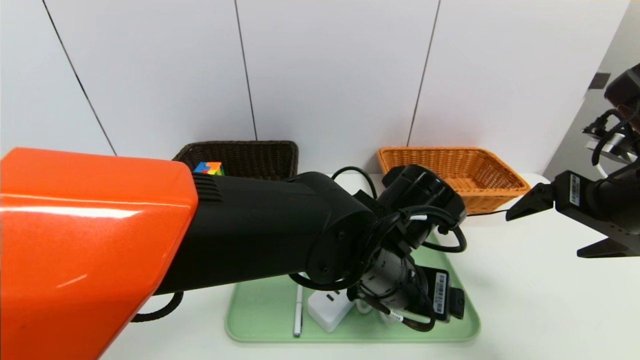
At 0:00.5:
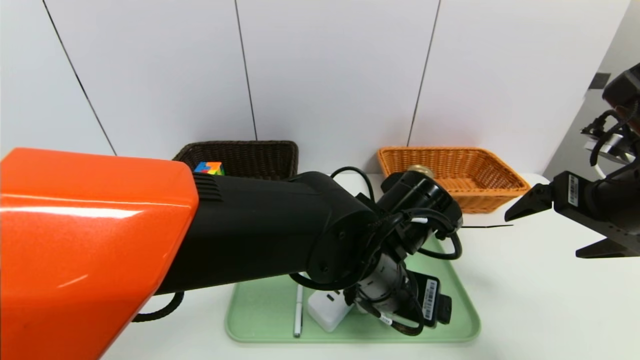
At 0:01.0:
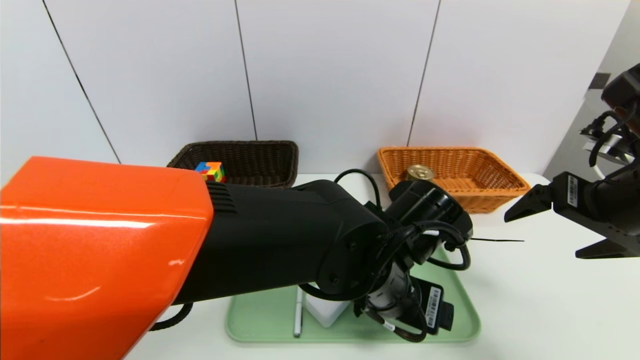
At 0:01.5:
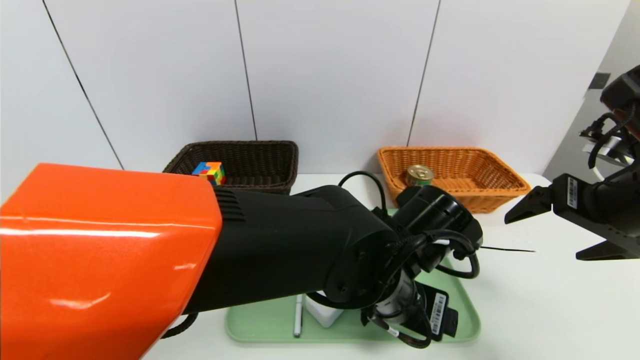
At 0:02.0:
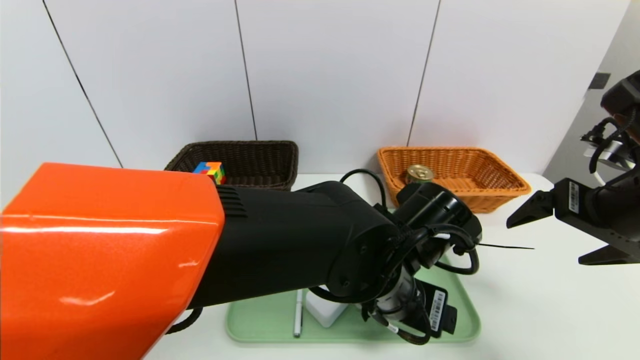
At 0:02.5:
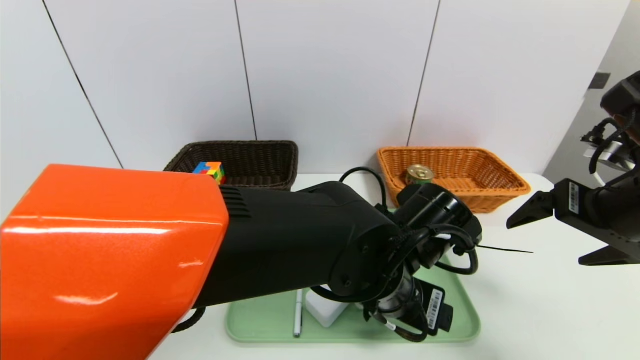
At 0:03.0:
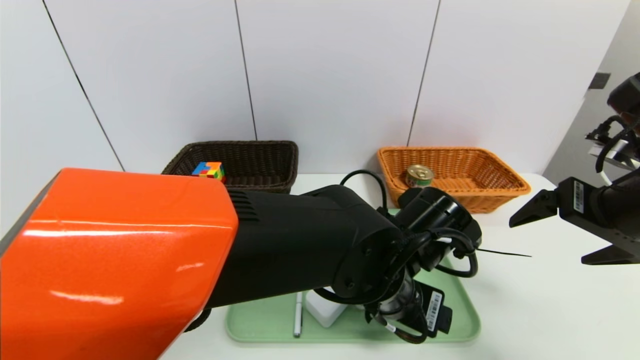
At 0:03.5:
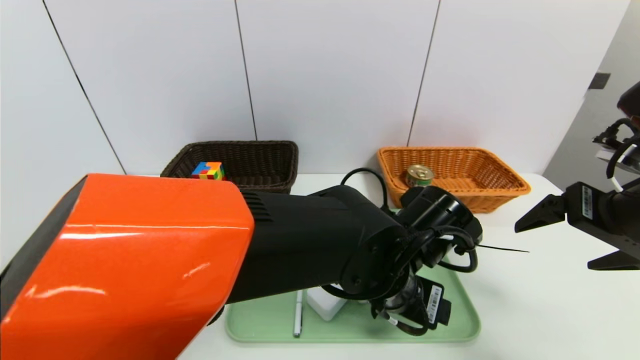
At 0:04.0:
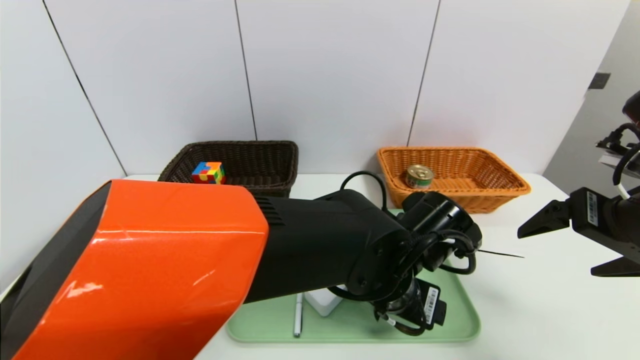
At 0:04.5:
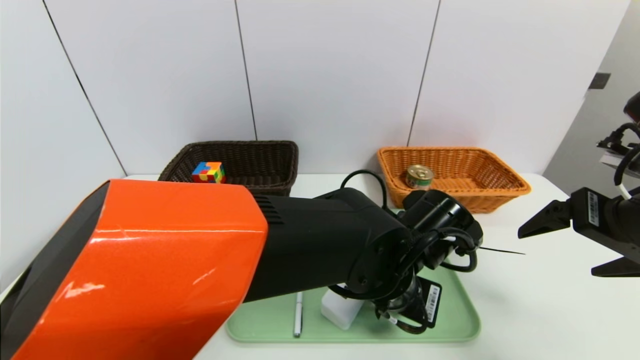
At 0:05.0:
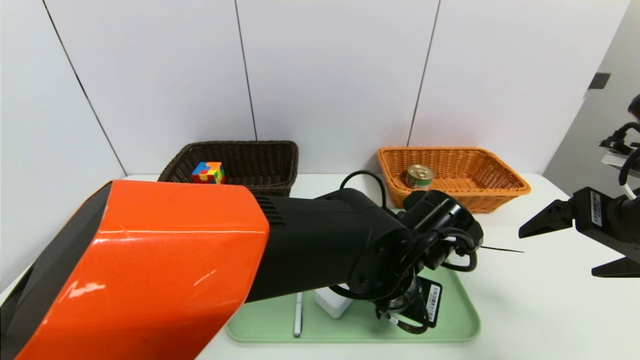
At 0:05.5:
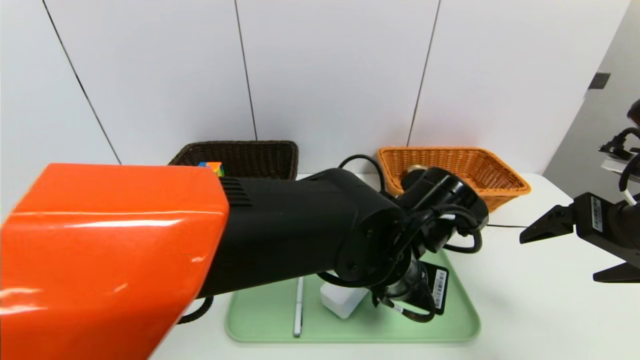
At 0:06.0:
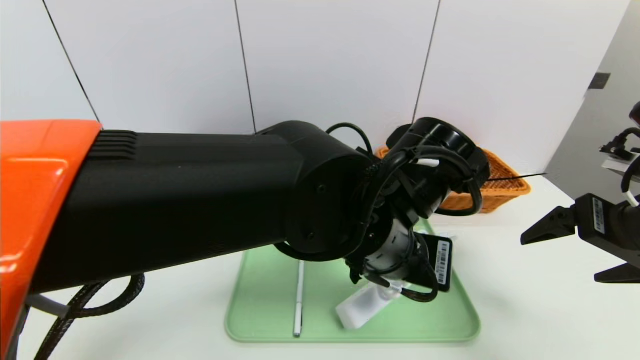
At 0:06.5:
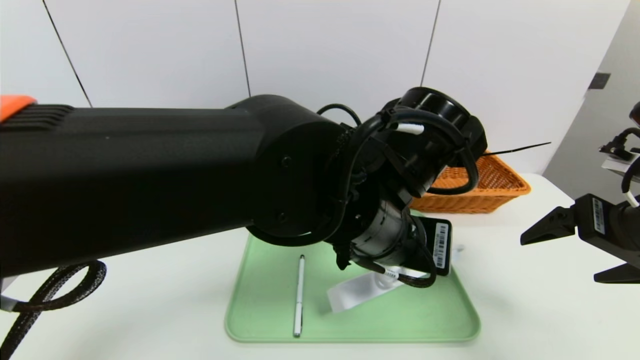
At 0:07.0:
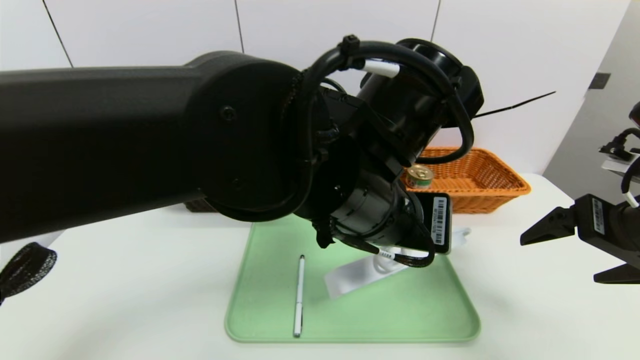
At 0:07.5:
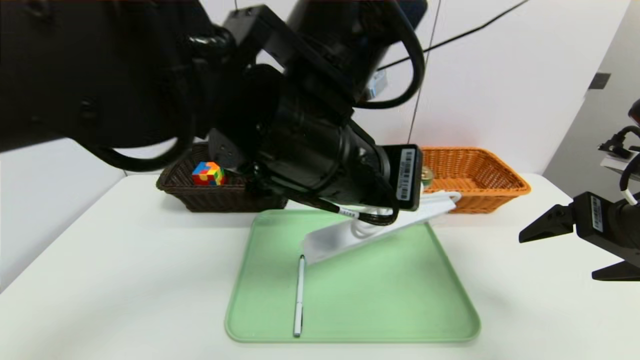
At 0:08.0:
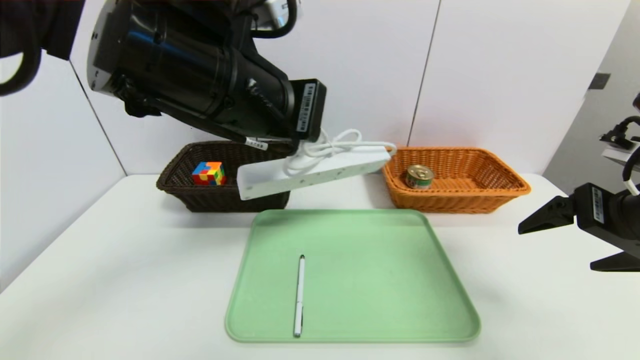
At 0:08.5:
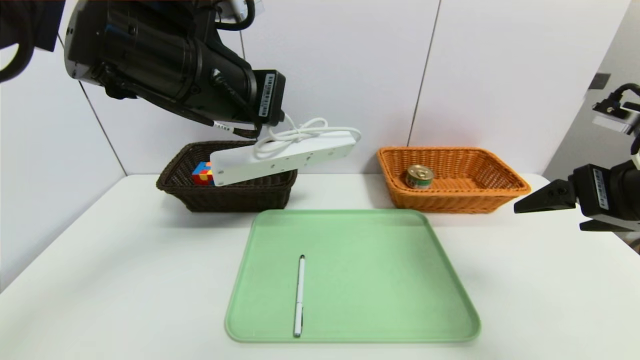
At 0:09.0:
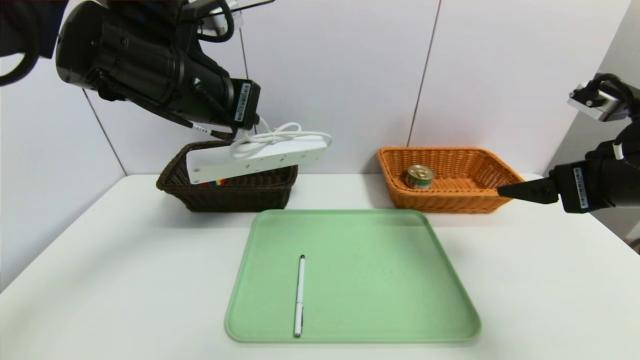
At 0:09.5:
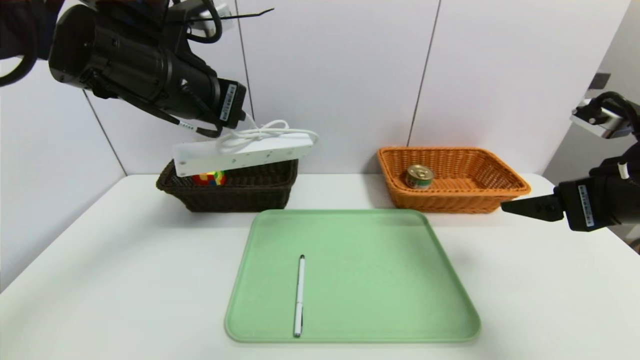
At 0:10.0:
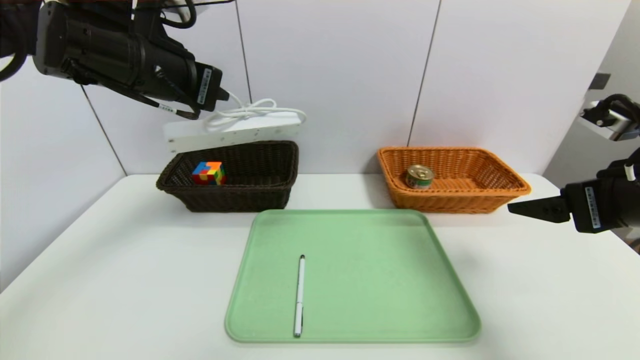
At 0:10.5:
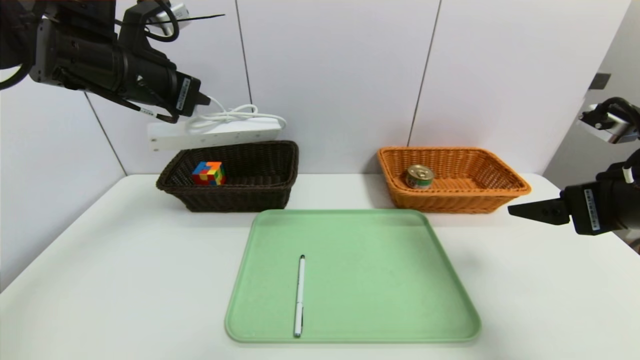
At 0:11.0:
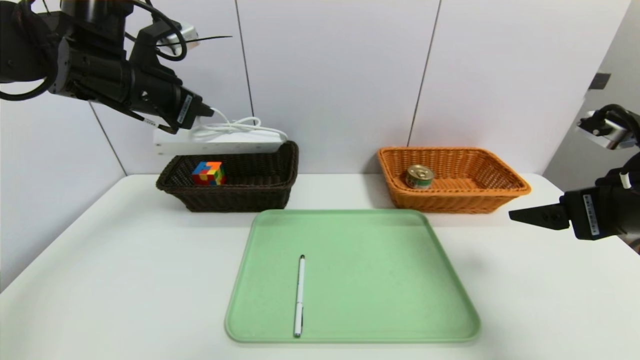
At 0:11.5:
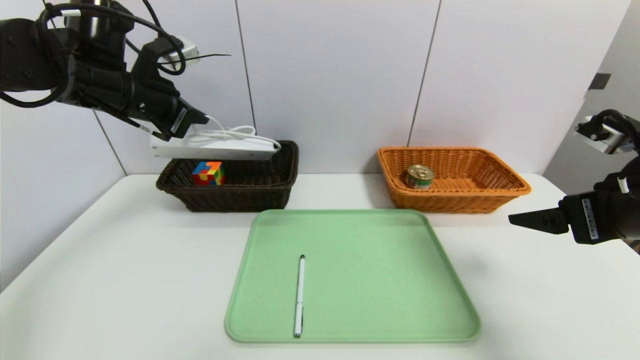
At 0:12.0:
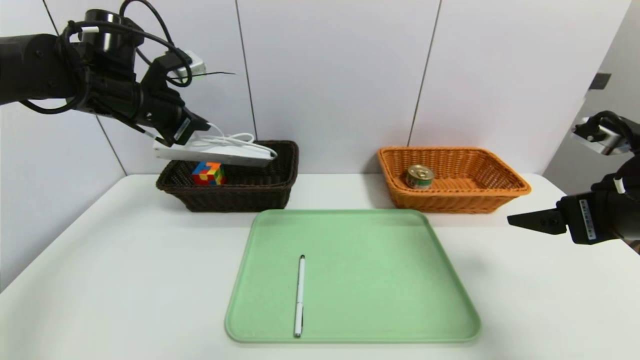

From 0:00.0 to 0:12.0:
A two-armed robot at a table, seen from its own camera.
Task of the whole recording: place the food in the right basket with the right gripper, and place the non food items in the left basket with the left gripper.
From 0:00.0 to 0:04.0: The grippers stay close to where they were, moving slightly.
From 0:04.0 to 0:06.0: The left gripper goes approximately 10 cm upward, and closes.
From 0:06.0 to 0:08.0: The left gripper travels to the left and upward by about 20 cm.
From 0:08.0 to 0:10.0: The left gripper heads to the left and forward, covering approximately 15 cm.
From 0:10.0 to 0:12.0: The left gripper is displaced forward, to the left and downward by some 10 cm.

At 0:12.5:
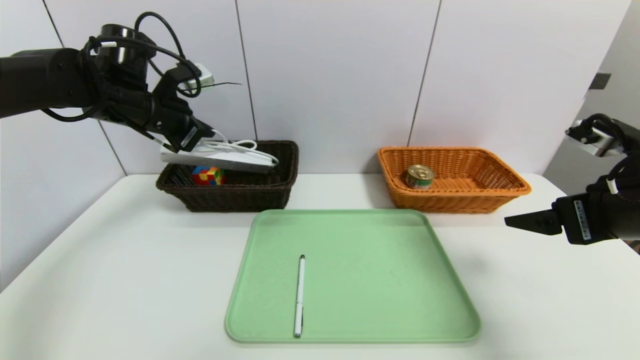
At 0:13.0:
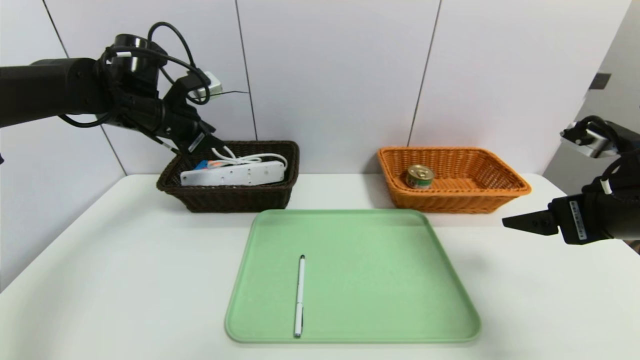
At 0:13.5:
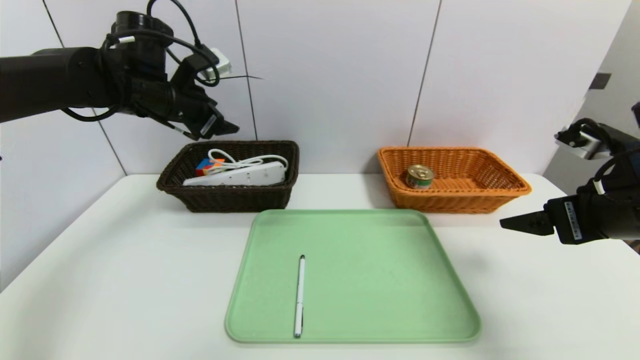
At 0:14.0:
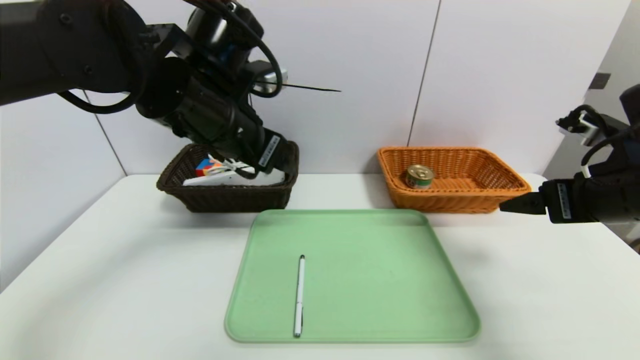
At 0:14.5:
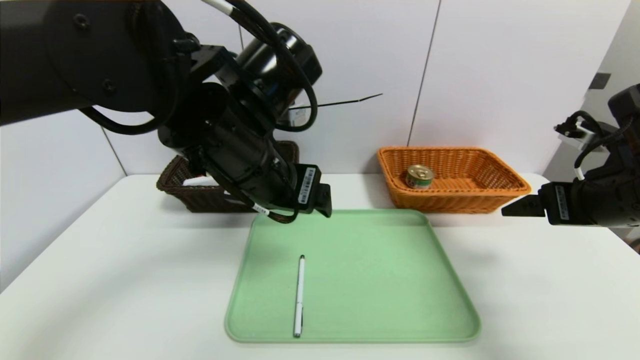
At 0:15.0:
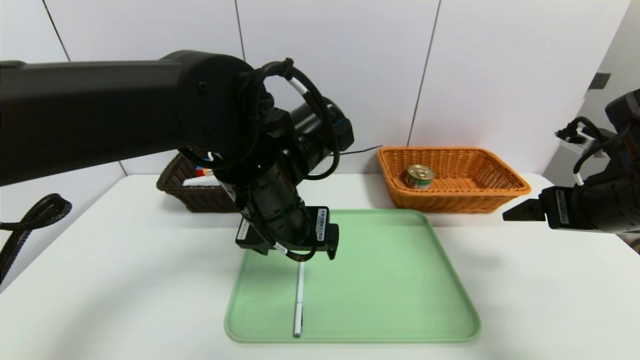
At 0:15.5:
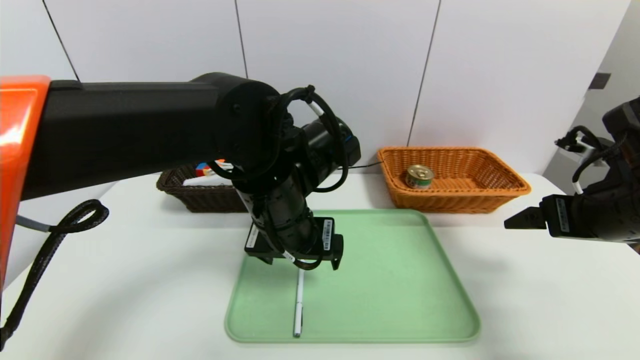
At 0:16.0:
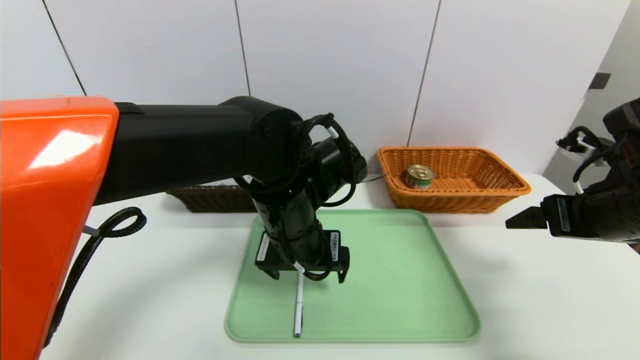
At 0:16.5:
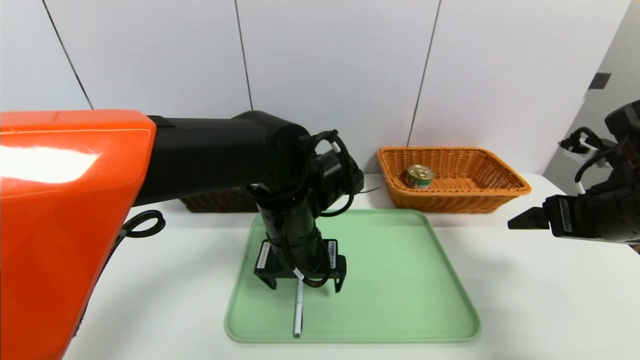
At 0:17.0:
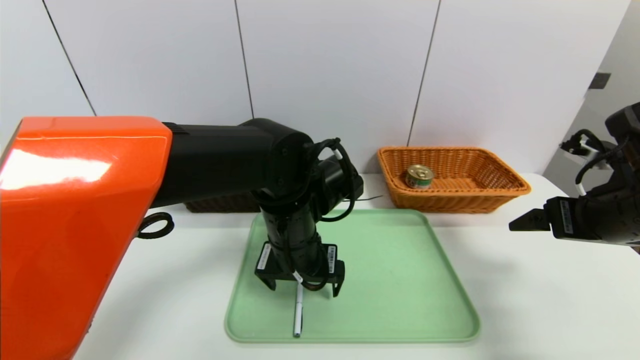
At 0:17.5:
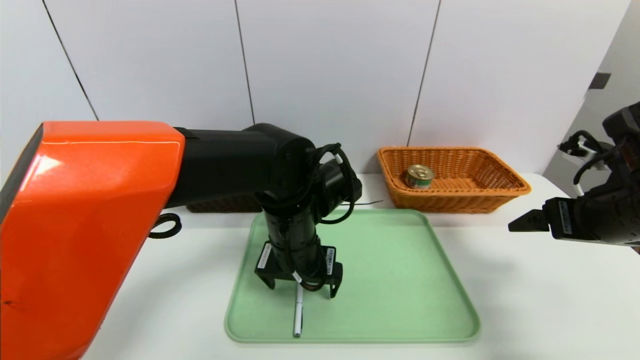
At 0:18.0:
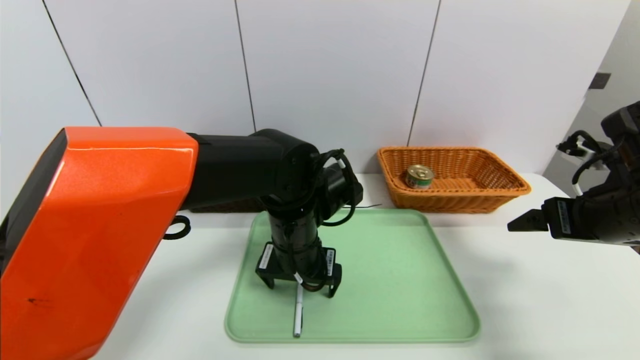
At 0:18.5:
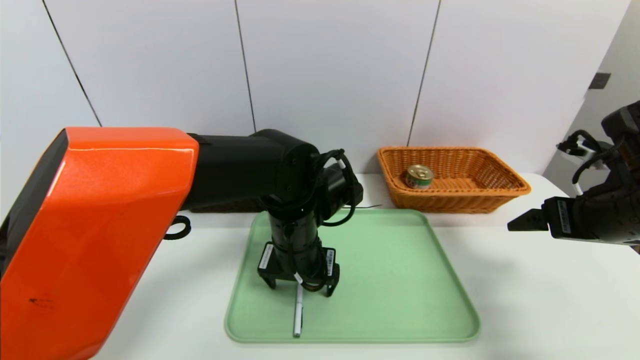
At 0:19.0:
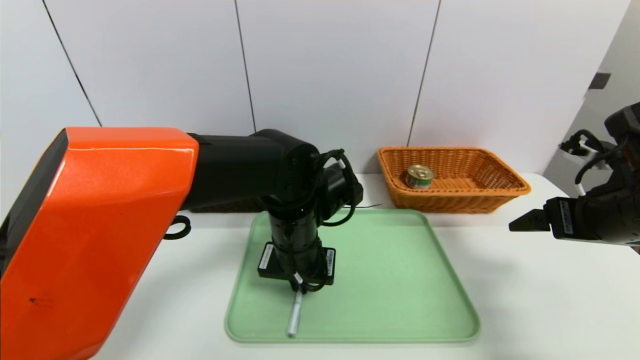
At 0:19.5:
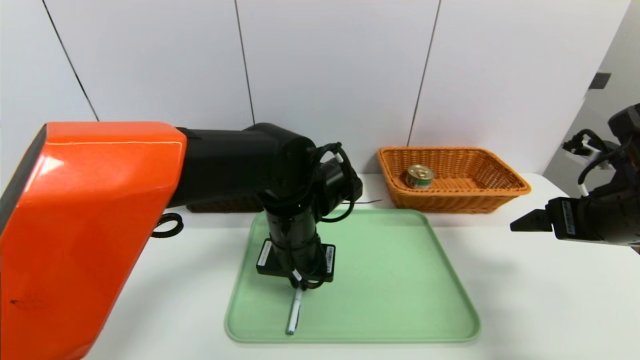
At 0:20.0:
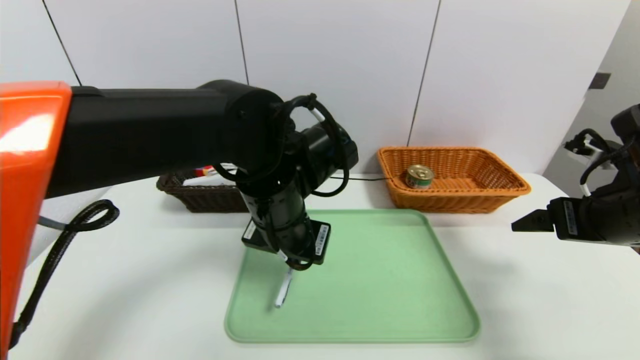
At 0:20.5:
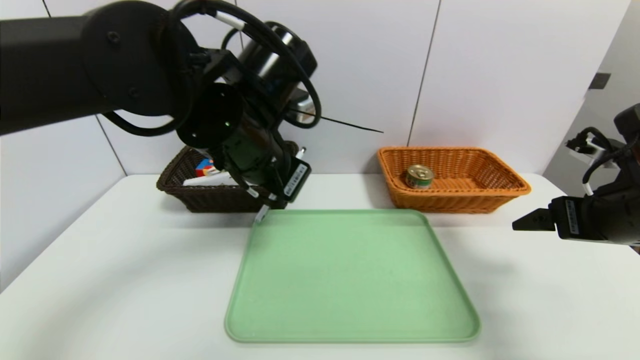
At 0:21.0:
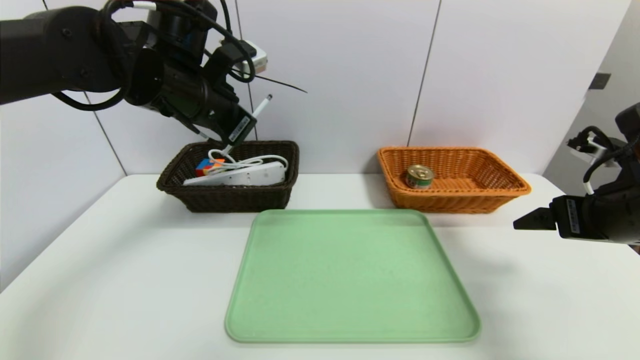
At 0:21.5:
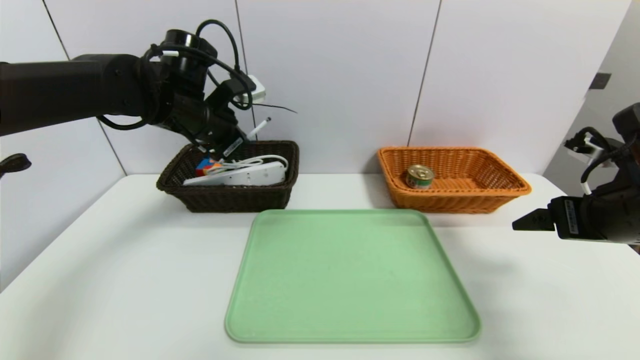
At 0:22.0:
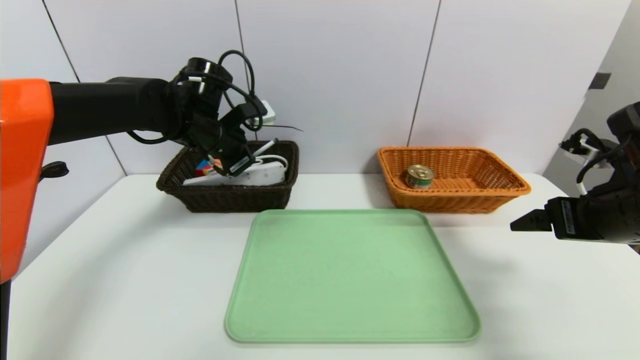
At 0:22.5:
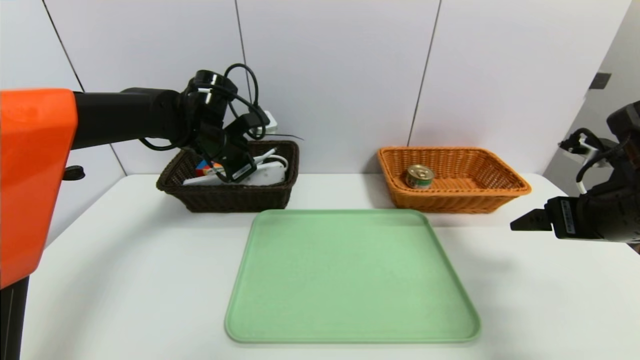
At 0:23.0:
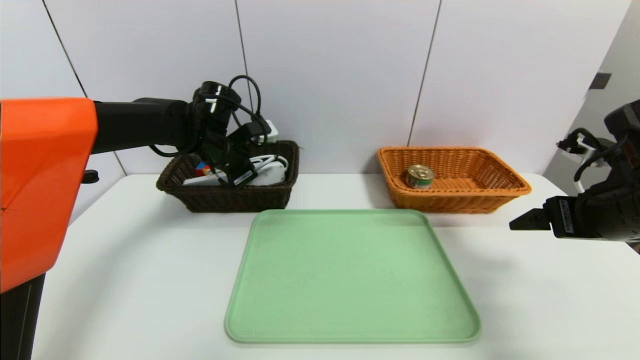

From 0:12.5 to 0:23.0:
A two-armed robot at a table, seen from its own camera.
Task of the whole recording: place the food in the right basket with the right gripper, and place the non food items in the left basket with the left gripper.
From 0:12.5 to 0:14.5: The left gripper travels to the right and backward by about 25 cm, and opens.
From 0:14.5 to 0:16.5: The left gripper shifts approximately 10 cm downward.
From 0:16.5 to 0:19.0: The left gripper closes up.
From 0:19.0 to 0:21.0: The left gripper travels upward and to the left by roughly 20 cm.
From 0:21.0 to 0:23.0: The left gripper moves downward and forward, approximately 15 cm.
